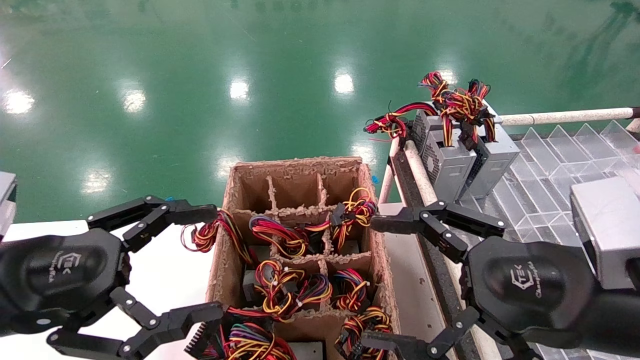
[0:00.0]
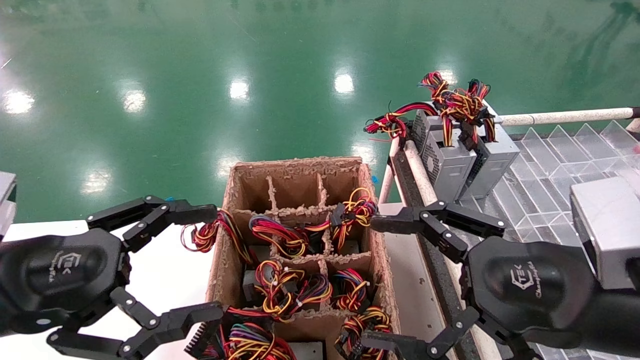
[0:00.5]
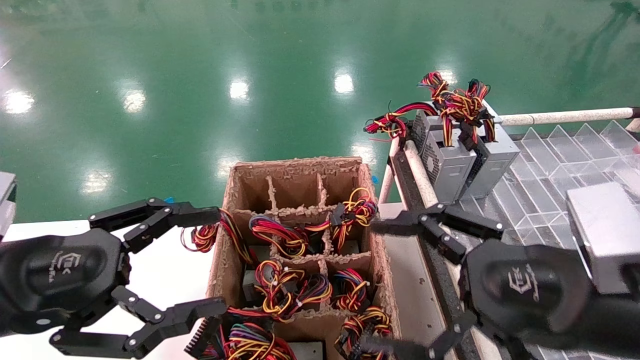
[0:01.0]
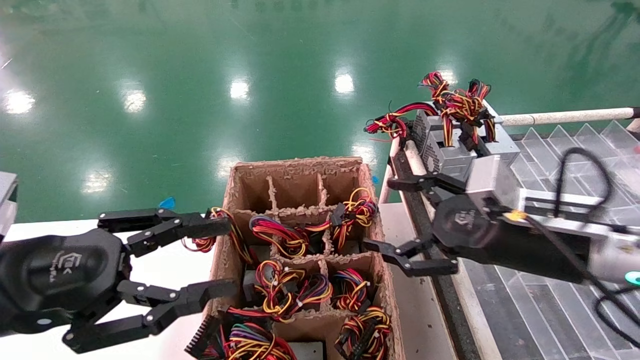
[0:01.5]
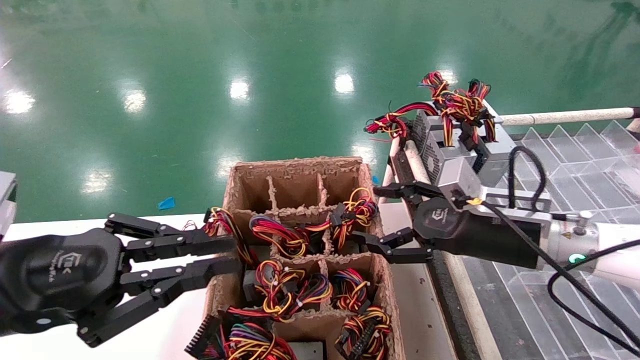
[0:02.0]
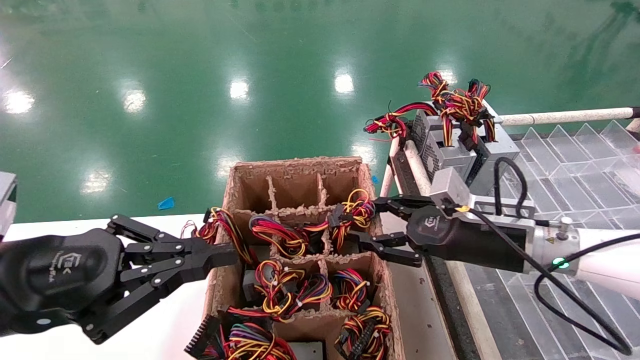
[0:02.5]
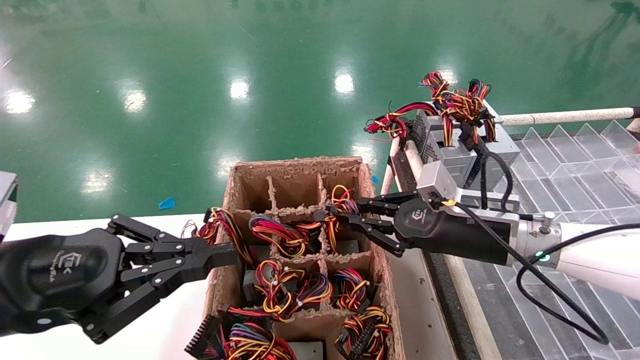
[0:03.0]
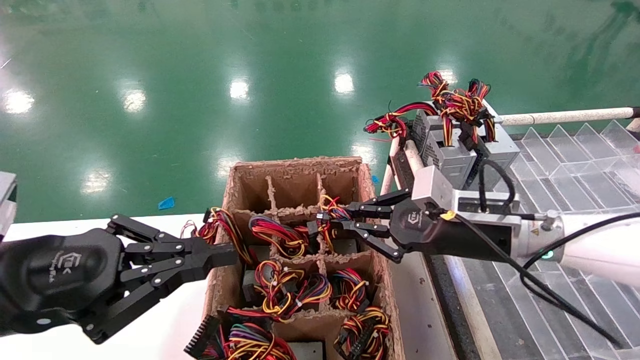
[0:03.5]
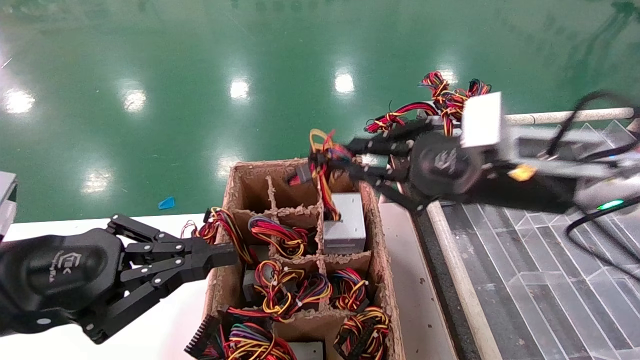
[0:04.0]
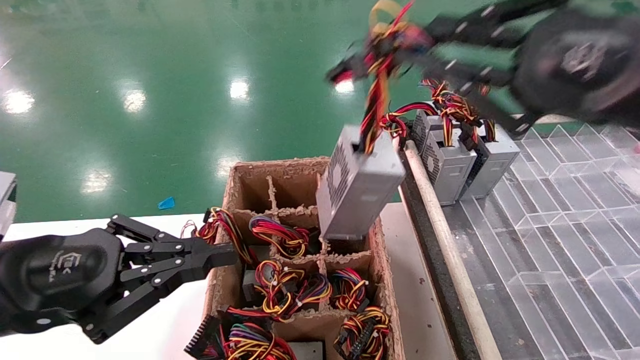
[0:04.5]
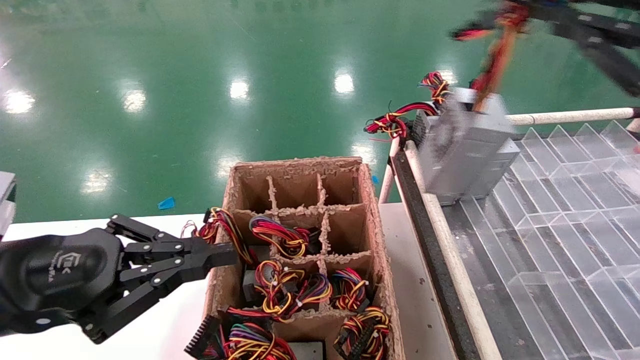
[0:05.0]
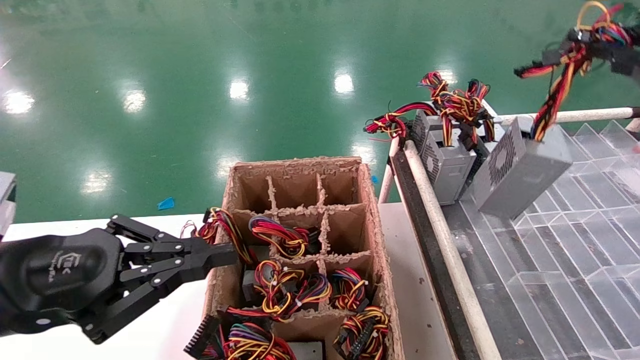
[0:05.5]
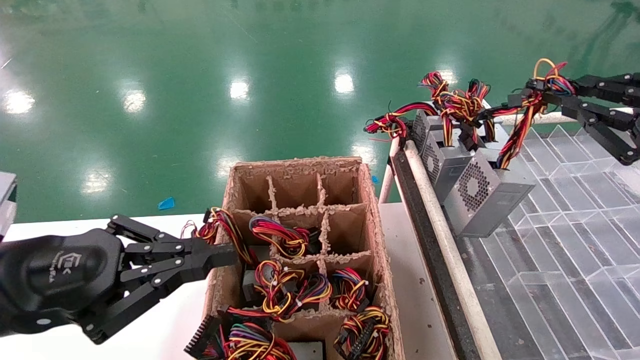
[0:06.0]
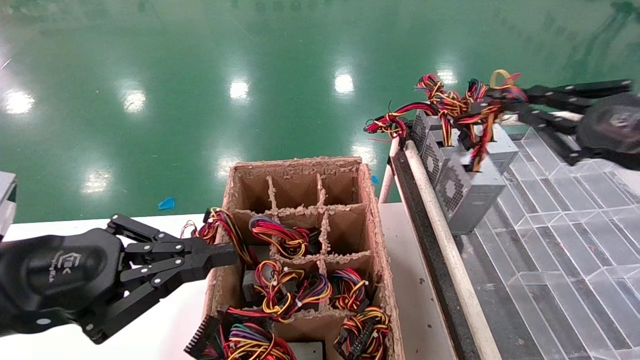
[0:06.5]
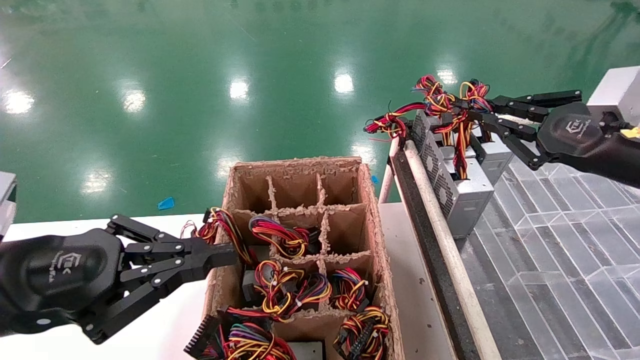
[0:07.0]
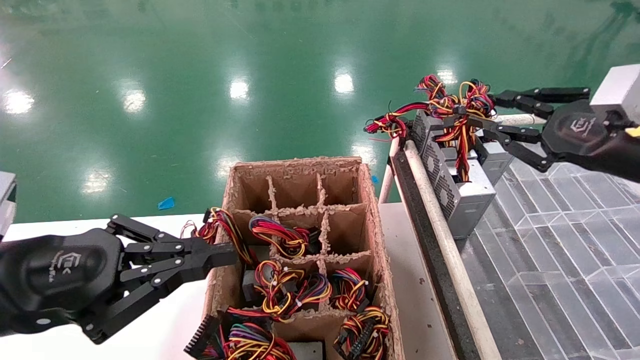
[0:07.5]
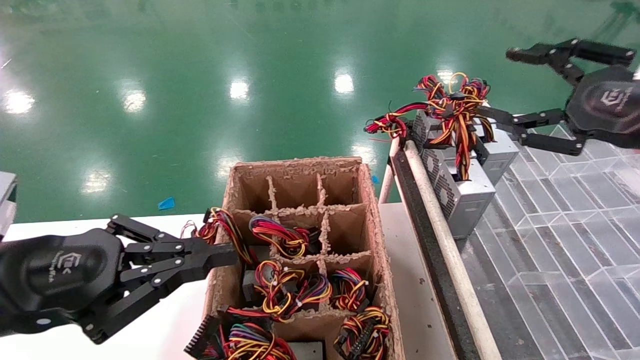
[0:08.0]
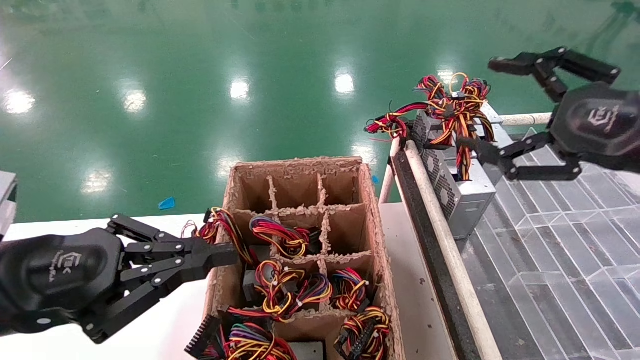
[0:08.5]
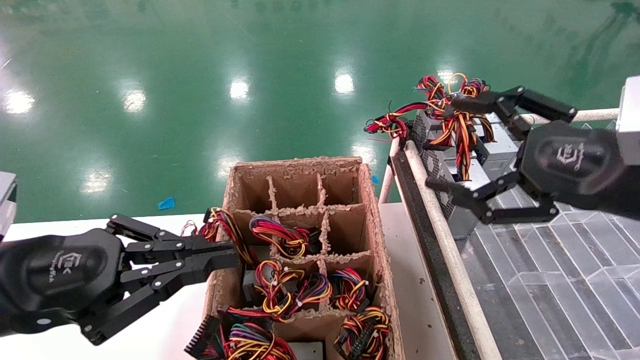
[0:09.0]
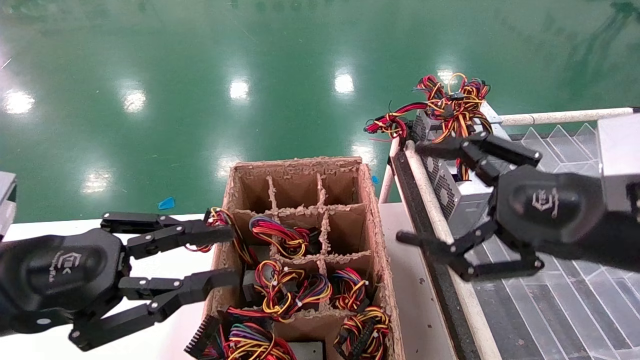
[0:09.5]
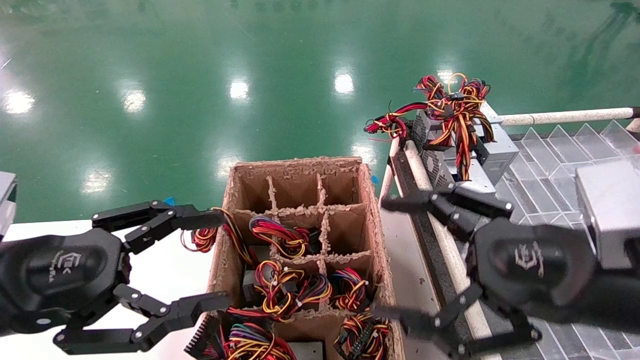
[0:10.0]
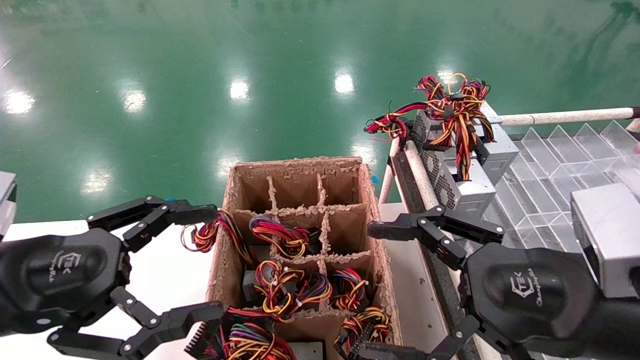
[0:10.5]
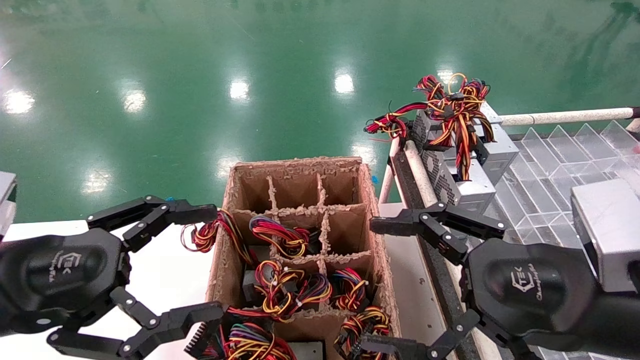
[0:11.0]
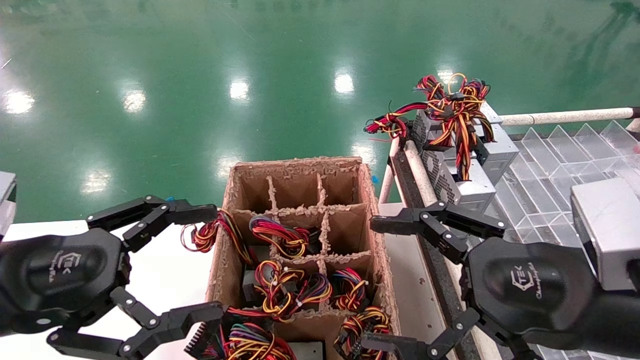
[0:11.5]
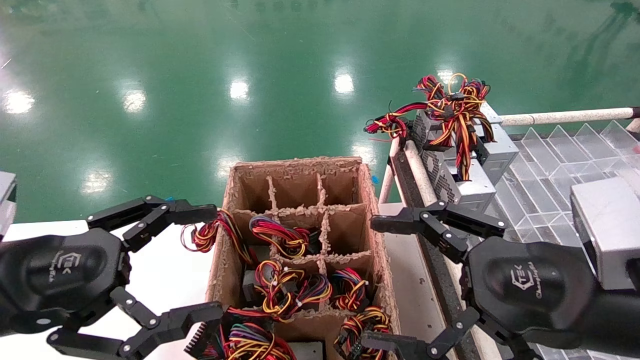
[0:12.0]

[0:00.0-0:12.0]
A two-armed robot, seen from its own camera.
Step, 0:01.5 to 0:03.0: Grab the main unit power supply from the containment box.
Step, 0:03.5 to 0:08.0: Place the main unit power supply in the designated area.
0:00.0 to 0:02.0: The right gripper travels forward by roughly 15 cm; the left gripper closes its fingers.
0:02.0 to 0:04.0: The right gripper goes some 10 cm upward, and closes its fingers.
0:04.0 to 0:06.0: The right gripper moves to the right and backward, about 20 cm.
0:06.0 to 0:08.0: The right gripper shifts by about 5 cm, and opens.
0:08.0 to 0:10.0: The left gripper opens its fingers; the right gripper goes some 15 cm to the left, downward and backward, and opens up.
0:10.0 to 0:12.0: The grippers move only a little.

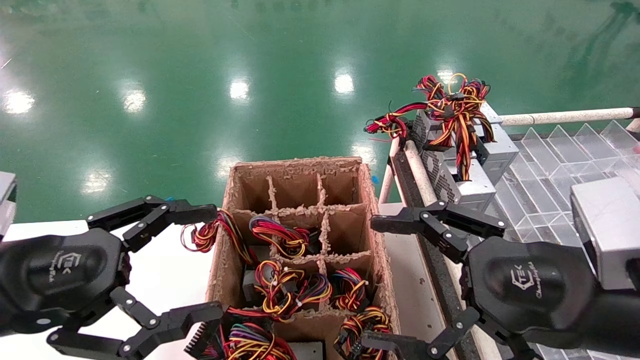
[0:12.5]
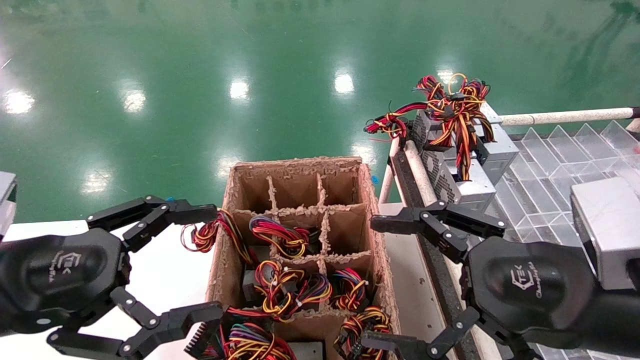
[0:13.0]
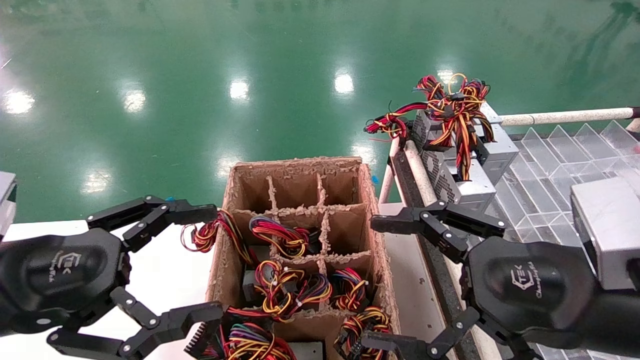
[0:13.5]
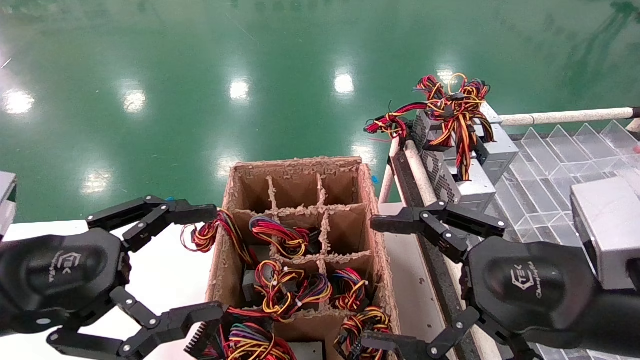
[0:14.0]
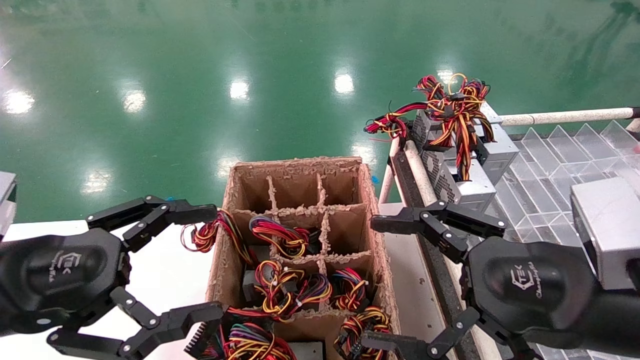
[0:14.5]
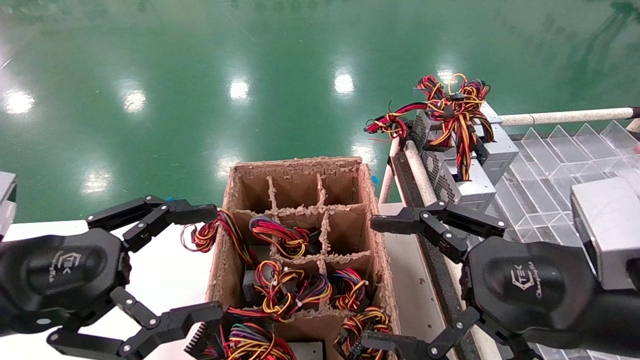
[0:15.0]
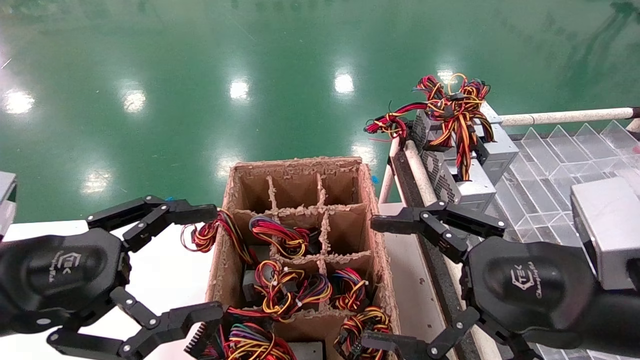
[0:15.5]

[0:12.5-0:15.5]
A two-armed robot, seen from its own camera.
0:12.5 to 0:15.5: The two grippers keep their place.

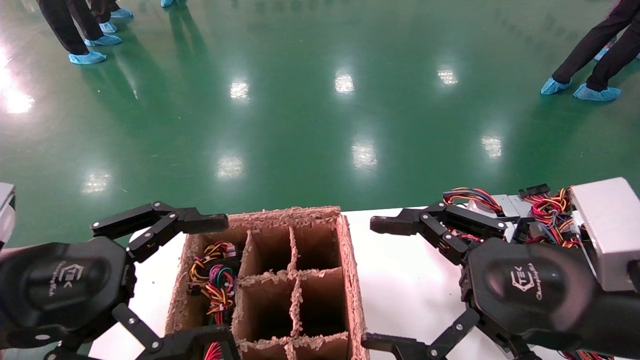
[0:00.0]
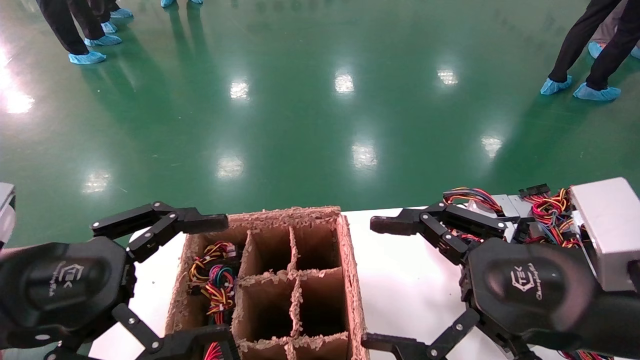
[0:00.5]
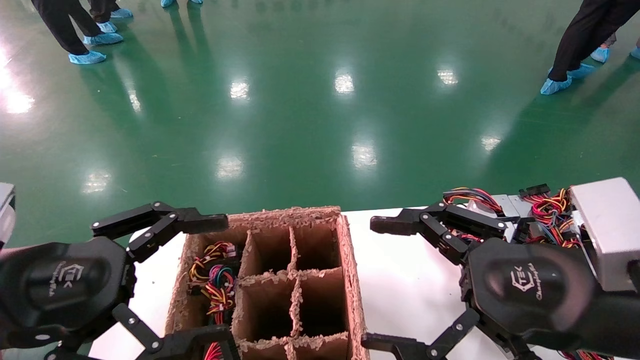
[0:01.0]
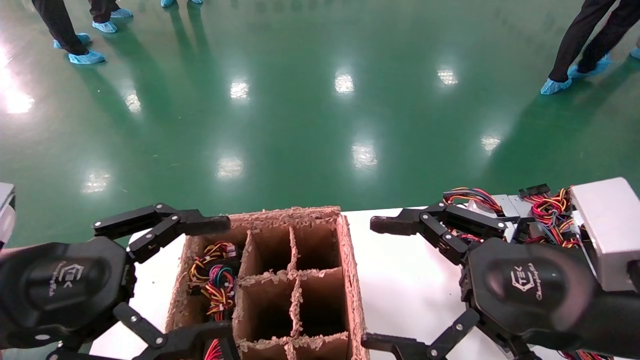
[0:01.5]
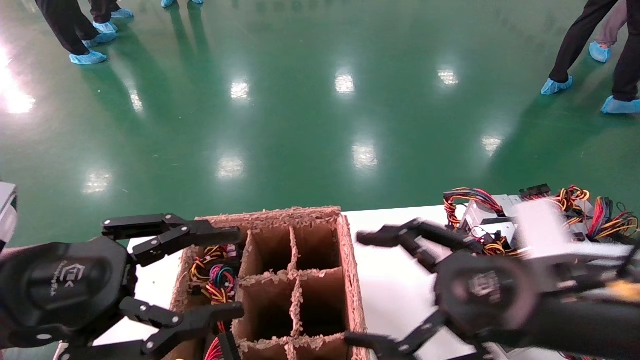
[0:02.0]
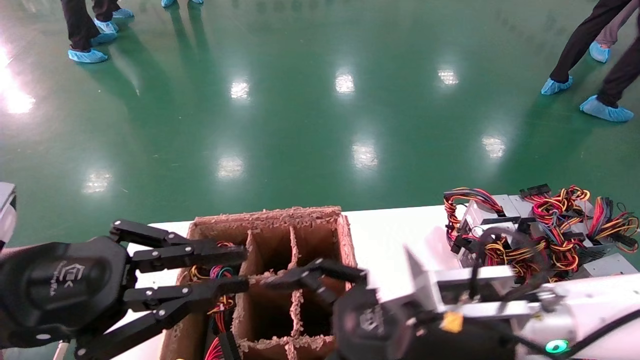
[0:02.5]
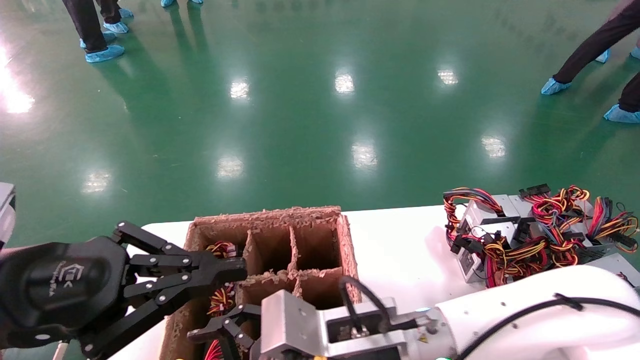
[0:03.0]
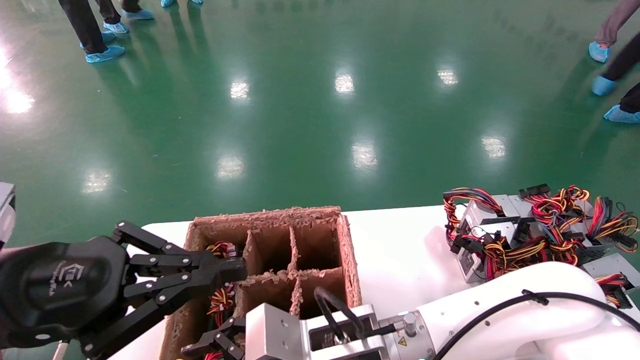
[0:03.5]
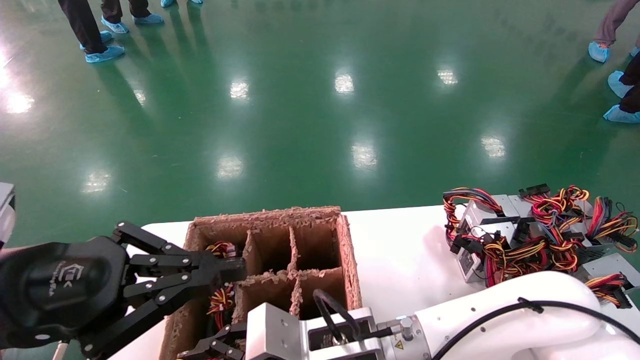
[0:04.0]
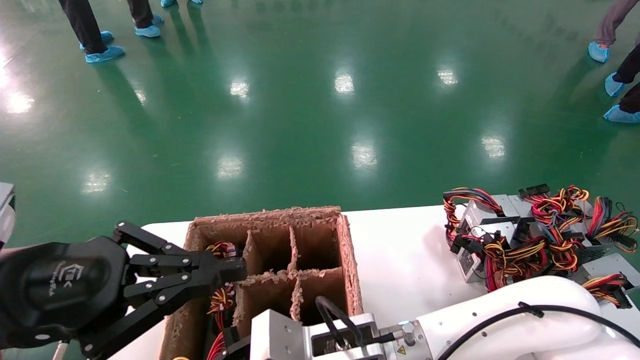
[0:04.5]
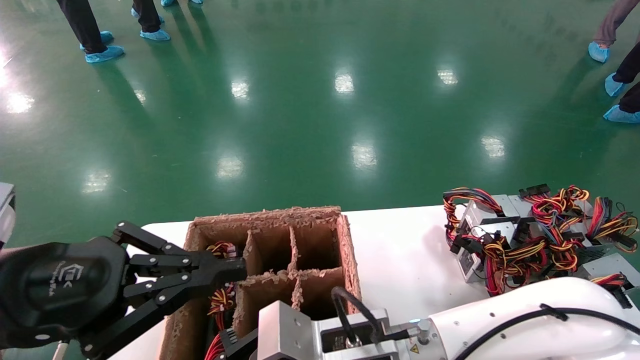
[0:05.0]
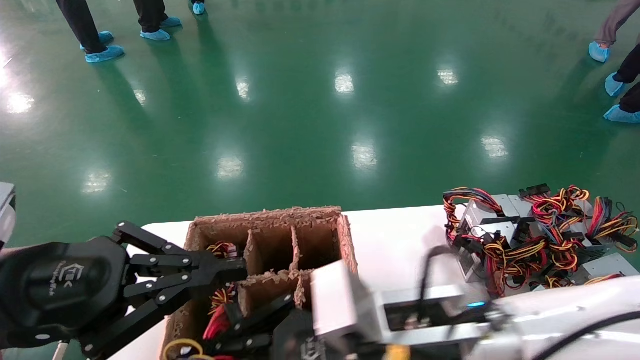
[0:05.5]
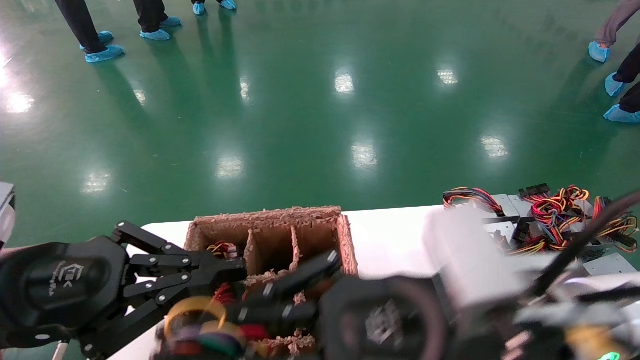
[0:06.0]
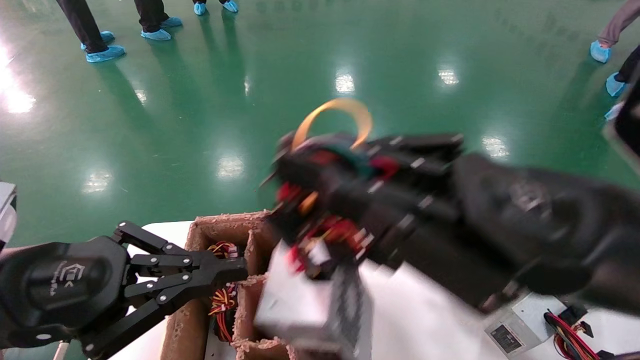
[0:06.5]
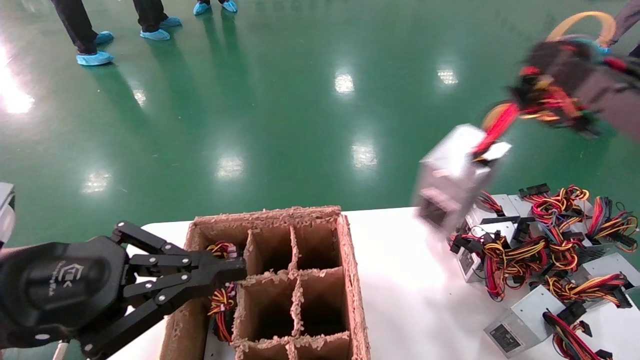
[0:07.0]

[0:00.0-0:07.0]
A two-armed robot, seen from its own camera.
Step, 0:02.0 to 0:04.5: Grab the main unit power supply from the containment box.
0:00.0 to 0:02.0: The right gripper shifts by some 5 cm.
0:02.0 to 0:03.5: The left gripper closes. The right gripper heads to the left and downward, covering approximately 20 cm.
0:03.5 to 0:05.0: The right gripper closes up.
0:05.0 to 0:07.0: The right gripper travels to the right and upward by about 35 cm.
